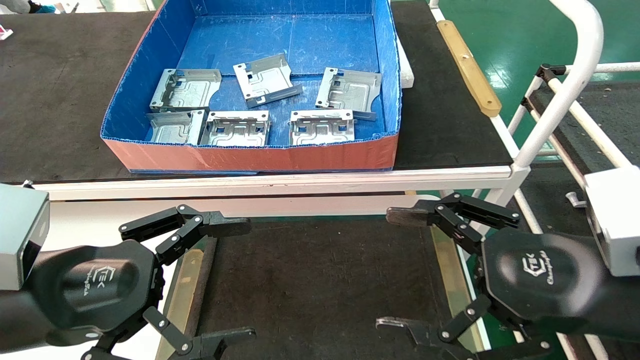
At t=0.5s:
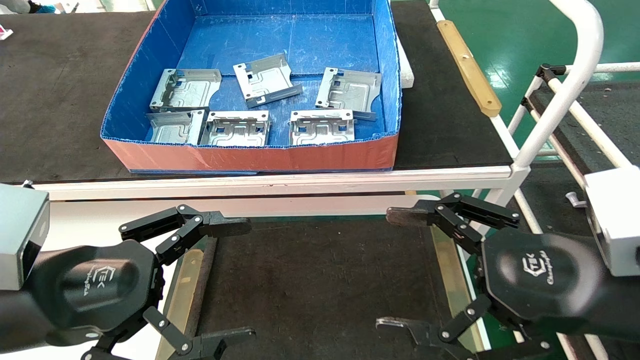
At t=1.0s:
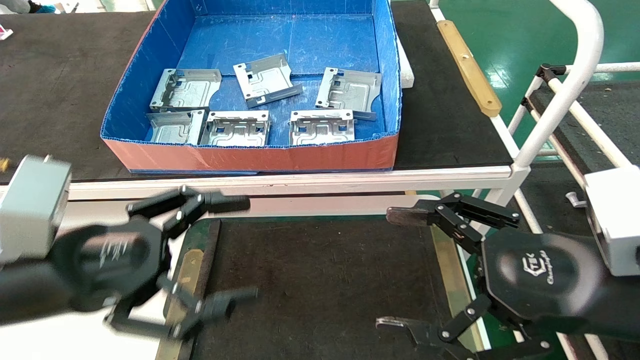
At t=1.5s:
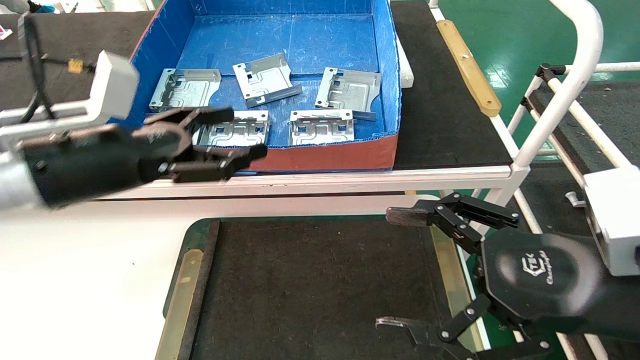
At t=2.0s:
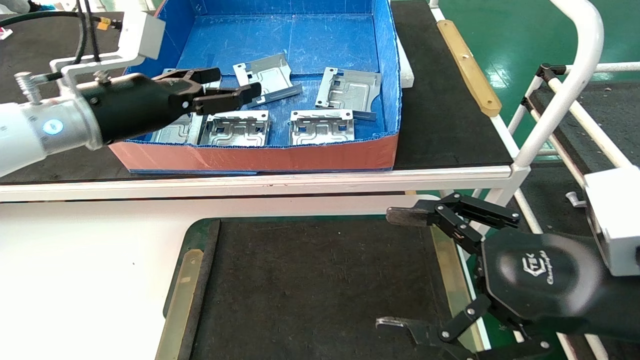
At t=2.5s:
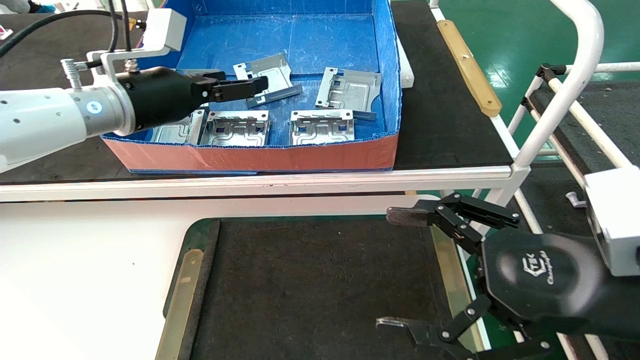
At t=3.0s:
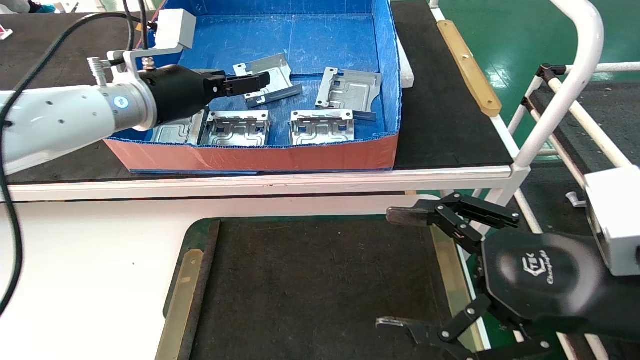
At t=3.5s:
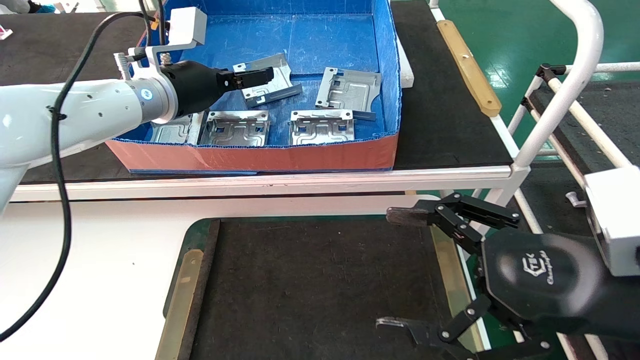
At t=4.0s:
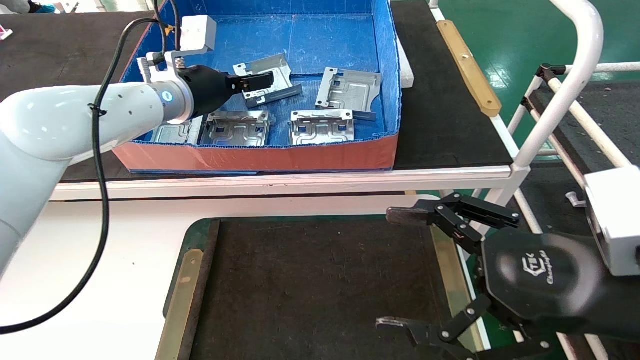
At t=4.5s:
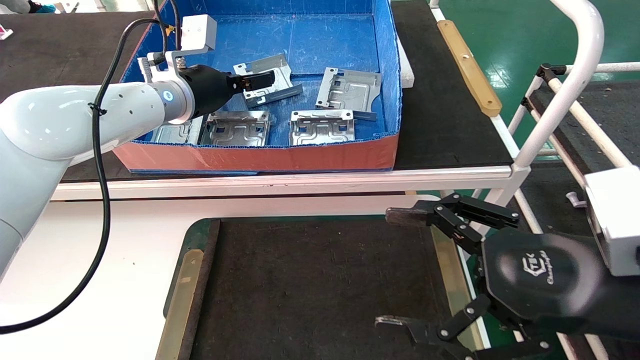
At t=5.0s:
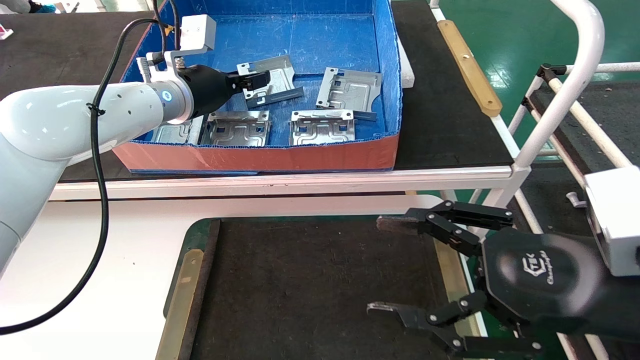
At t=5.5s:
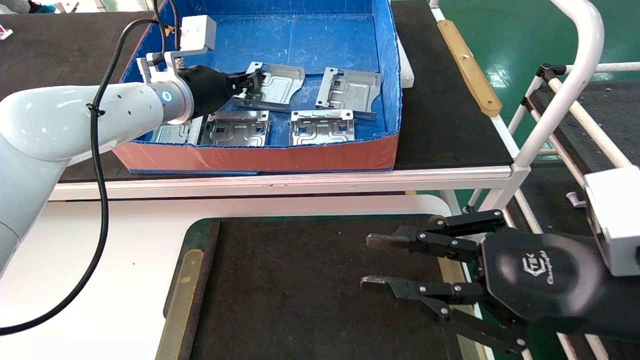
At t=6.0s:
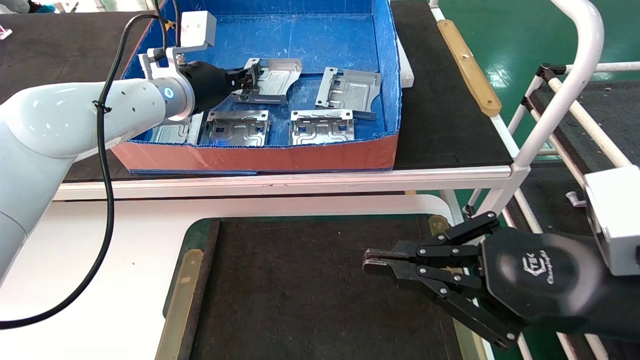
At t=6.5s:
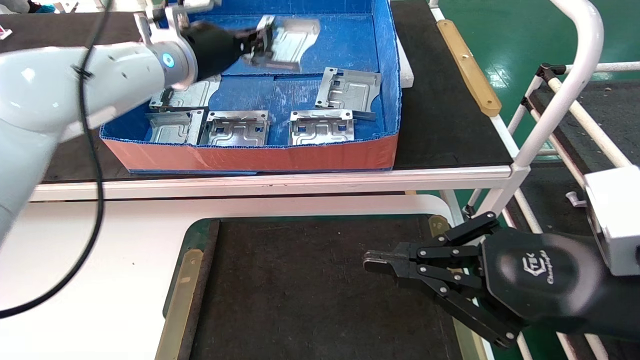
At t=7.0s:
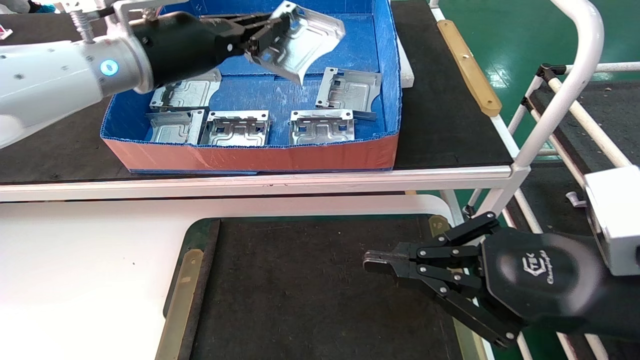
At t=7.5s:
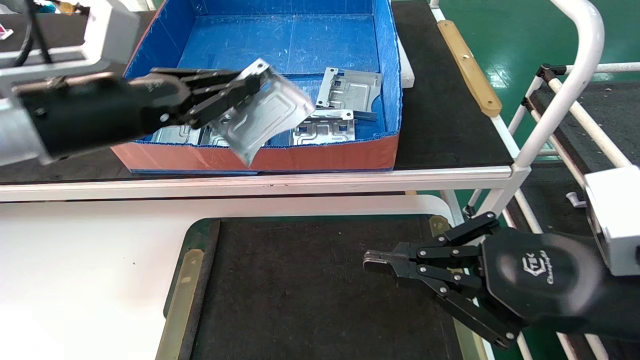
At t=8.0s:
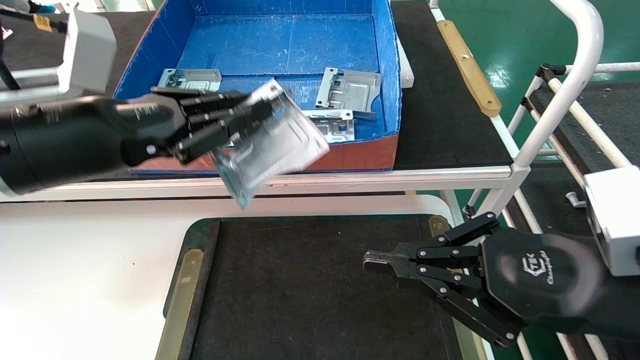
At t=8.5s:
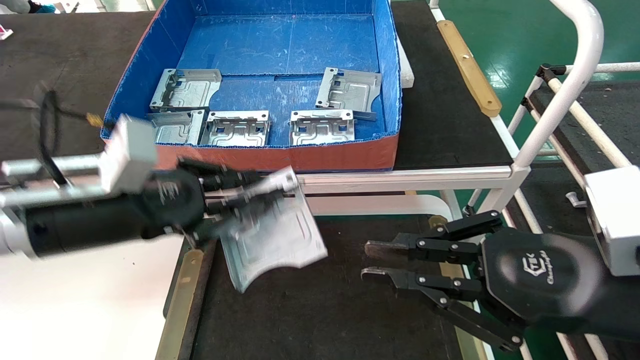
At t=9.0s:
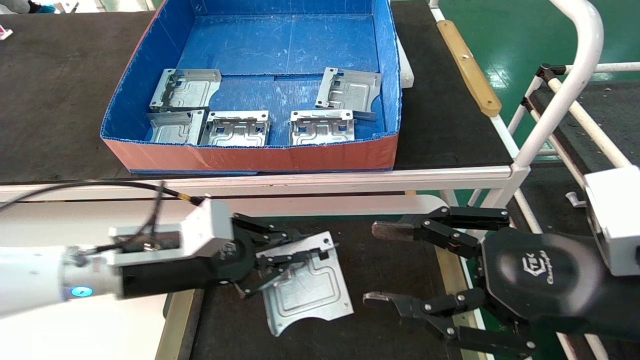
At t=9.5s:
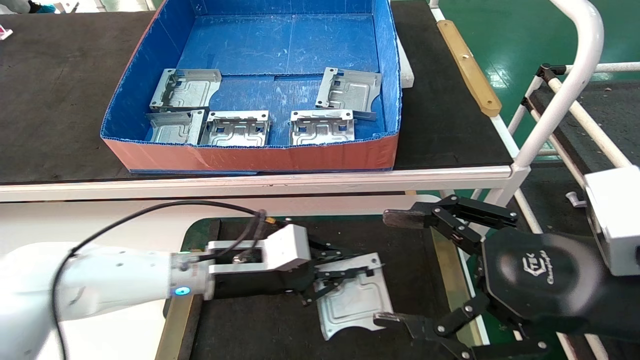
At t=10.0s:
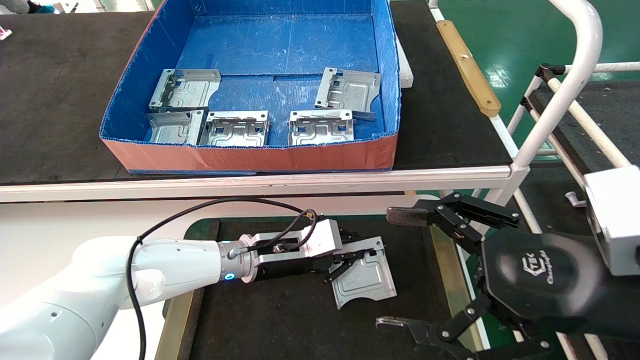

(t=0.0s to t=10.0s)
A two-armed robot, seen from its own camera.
Task of the whole recording: take the accessories out of the box and place them on the table.
Step, t=1.0s - t=5.5s: Pick up the hard drive bracket from the feeding area.
t=0.0s - t=2.0s: The left gripper goes some 20 cm forward and upward.
t=2.0s - t=4.0s: The left gripper heads forward and to the right, covering approximately 10 cm.
t=4.0s - t=6.0s: The left gripper closes up; the right gripper closes.
t=6.0s - t=8.0s: The left gripper travels backward by roughly 20 cm.
t=8.0s - t=10.0s: The left gripper moves downward, forward and to the right, some 30 cm. Meanwhile the right gripper opens up.

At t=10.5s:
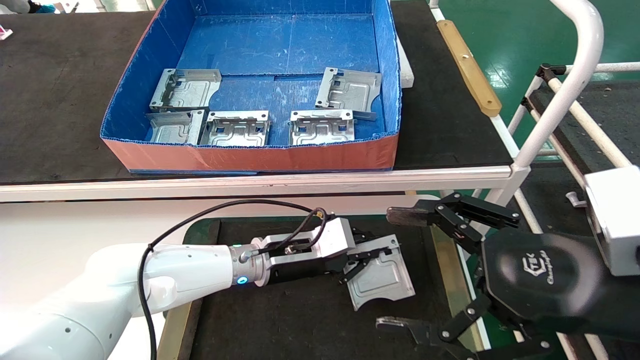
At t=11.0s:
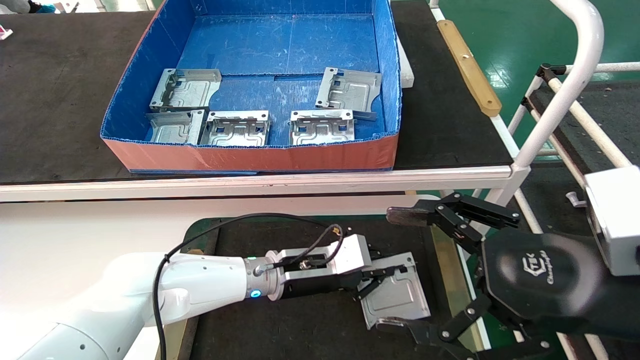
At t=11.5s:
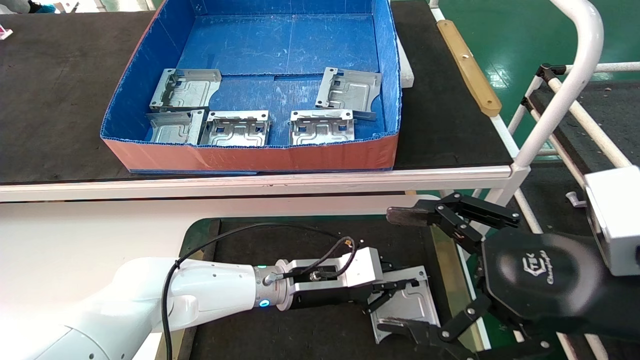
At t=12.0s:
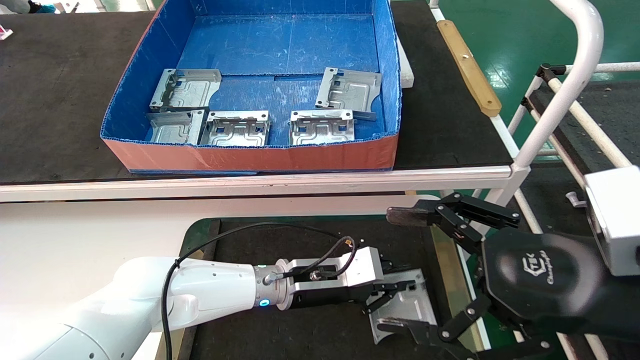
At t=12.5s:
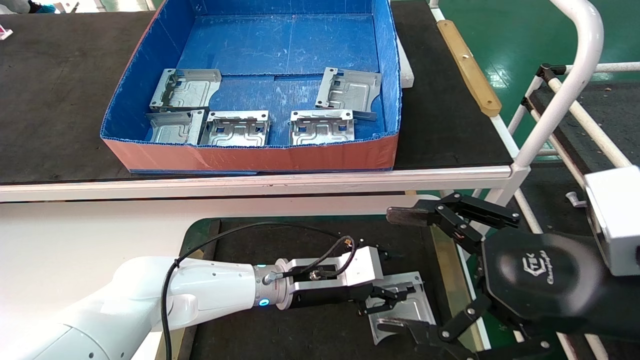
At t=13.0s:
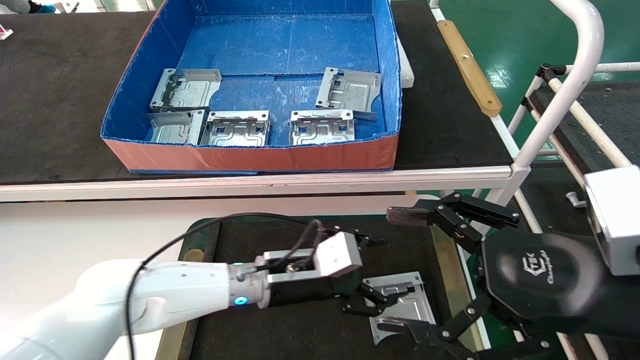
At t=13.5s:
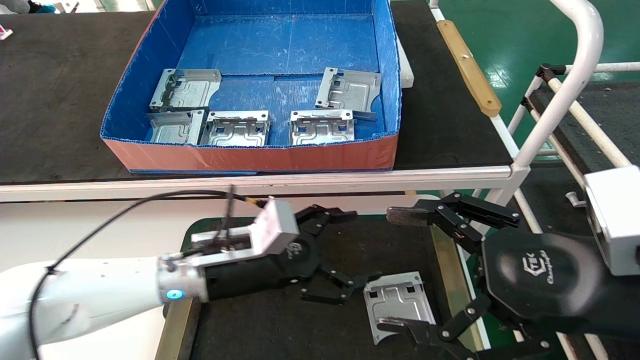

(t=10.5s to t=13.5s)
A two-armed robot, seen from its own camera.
Task of the whole recording: take the accessories out of the box and place them on the table.
t=10.5s - t=12.0s: The left gripper changes place by some 5 cm.
t=12.0s - t=13.5s: The left gripper shifts some 15 cm to the left, upward and backward, and opens up.
